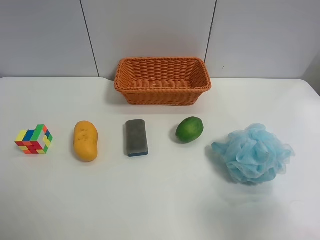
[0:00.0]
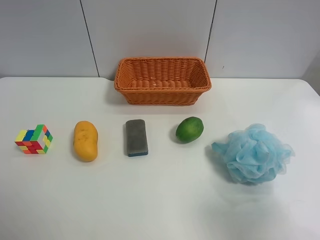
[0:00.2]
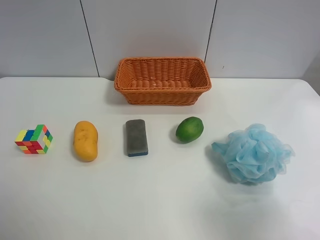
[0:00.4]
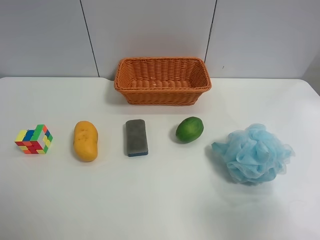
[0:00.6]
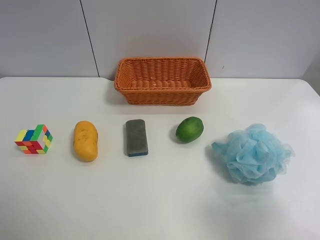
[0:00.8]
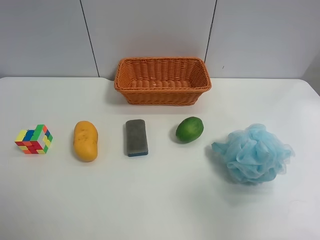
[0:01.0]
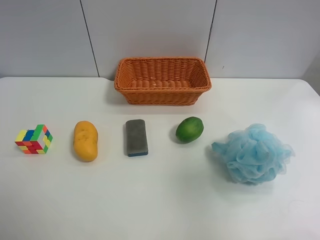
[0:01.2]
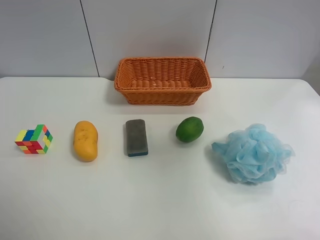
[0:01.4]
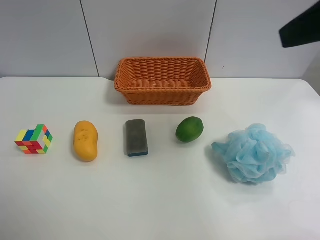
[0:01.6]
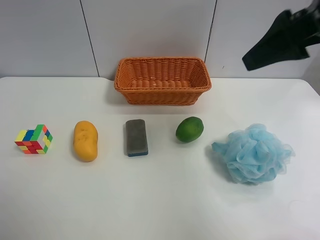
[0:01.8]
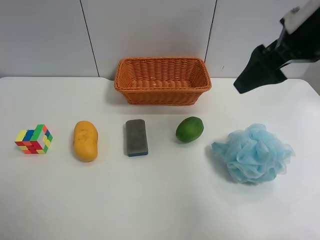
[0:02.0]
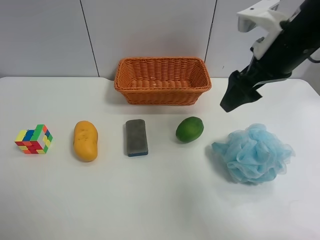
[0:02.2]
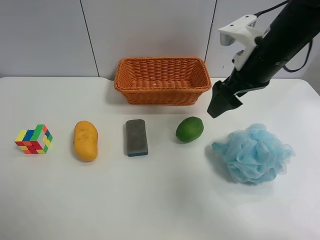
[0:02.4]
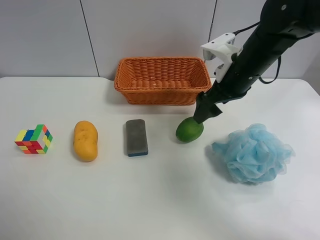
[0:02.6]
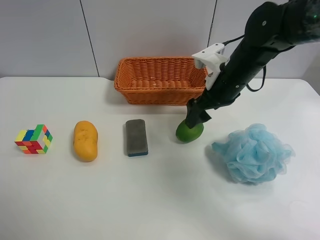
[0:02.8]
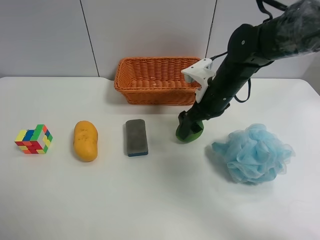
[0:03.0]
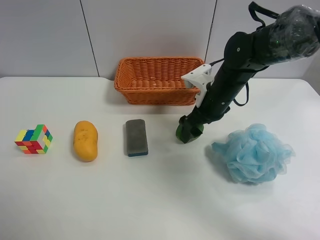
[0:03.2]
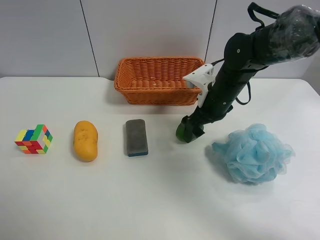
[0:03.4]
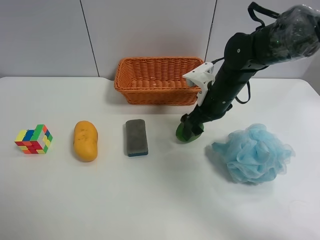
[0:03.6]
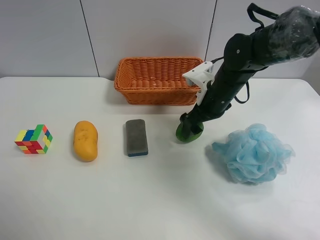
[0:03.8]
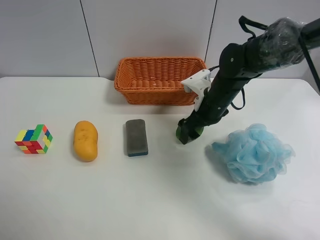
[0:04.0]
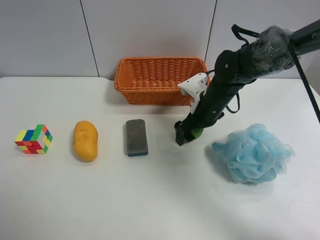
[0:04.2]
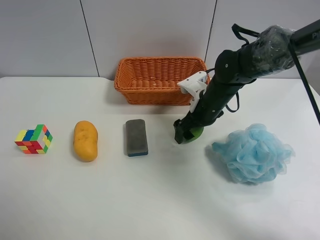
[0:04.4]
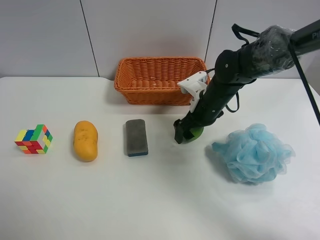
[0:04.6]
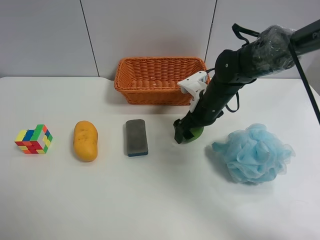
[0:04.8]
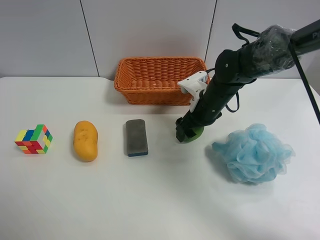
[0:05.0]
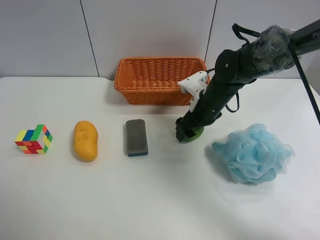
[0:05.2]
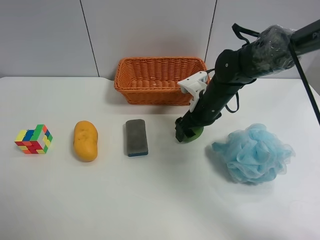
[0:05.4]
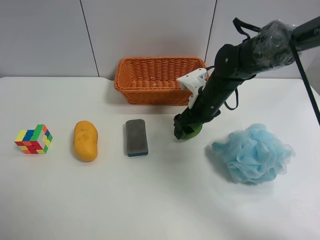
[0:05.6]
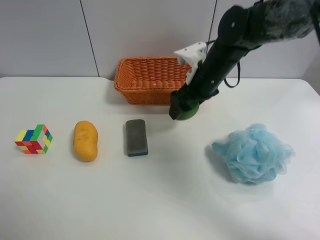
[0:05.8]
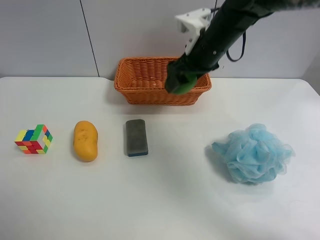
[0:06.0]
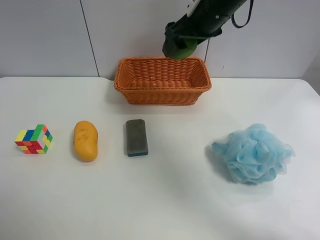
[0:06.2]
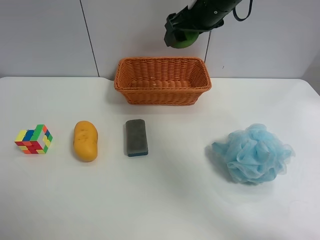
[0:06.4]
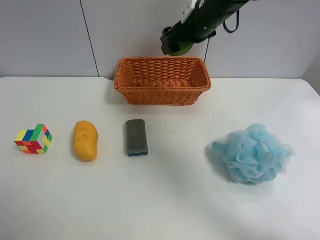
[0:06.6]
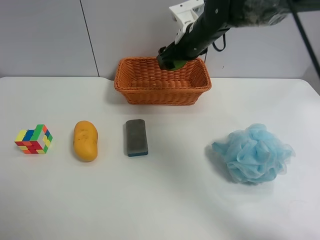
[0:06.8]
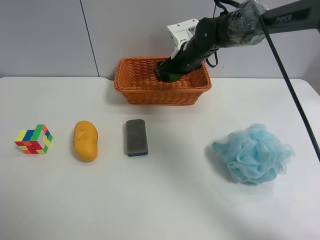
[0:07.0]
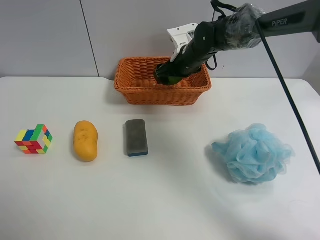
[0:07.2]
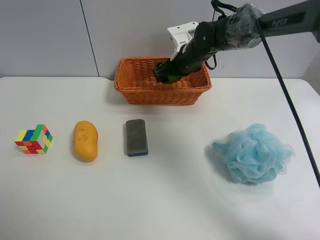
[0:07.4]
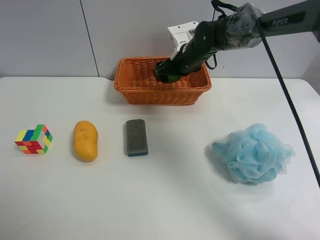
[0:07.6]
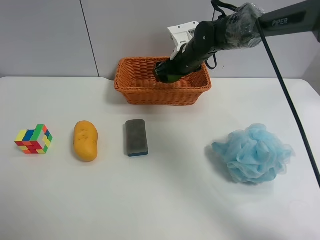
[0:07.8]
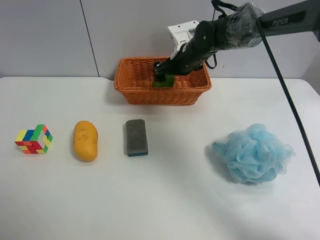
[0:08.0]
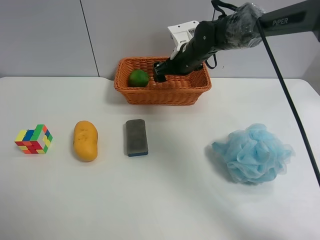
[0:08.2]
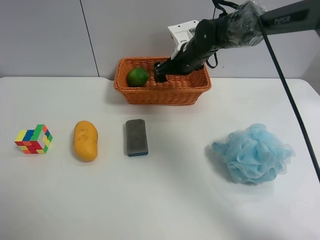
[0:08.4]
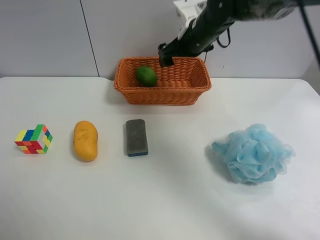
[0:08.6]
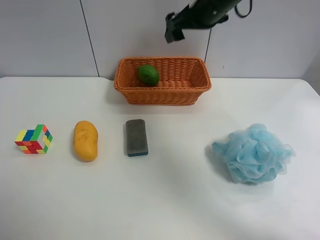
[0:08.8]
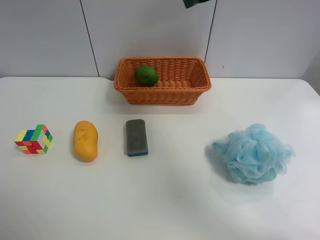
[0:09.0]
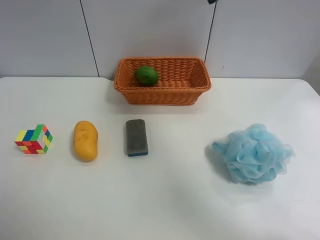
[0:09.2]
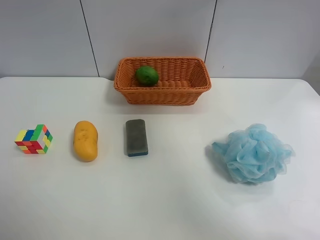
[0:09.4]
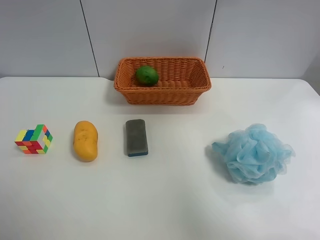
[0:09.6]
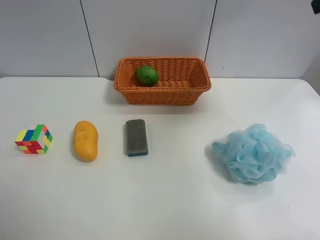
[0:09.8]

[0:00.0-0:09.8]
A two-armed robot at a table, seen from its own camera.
Task of the whole recording: Randomly grab green lemon or mangoes from the table and put them in a basket.
Step, 0:00.0 to 0:05.2: Grasp the Lemon with the right gripper.
Step, 0:05.4 to 0:08.6: Place the Lemon into the basket with the right gripper.
0:00.0 to 0:01.4: The right gripper goes roughly 20 cm forward and upward.
0:01.4 to 0:02.8: The right gripper goes about 30 cm downward, forward and to the left.
0:02.8 to 0:04.2: The right gripper shifts some 5 cm downward.
0:04.2 to 0:05.6: The right gripper closes.
0:05.6 to 0:07.0: The right gripper shifts approximately 10 cm forward, and reaches about 15 cm upward, then returns.
0:07.0 to 0:08.4: The right gripper opens.
0:08.4 to 0:09.8: The right gripper is displaced upward, backward and to the right by approximately 35 cm.

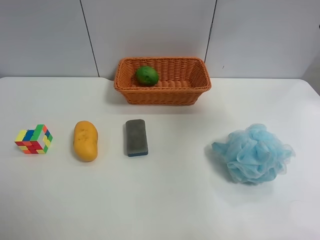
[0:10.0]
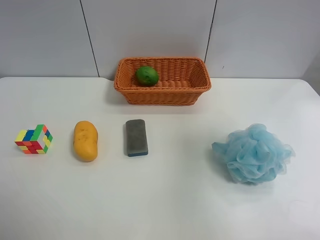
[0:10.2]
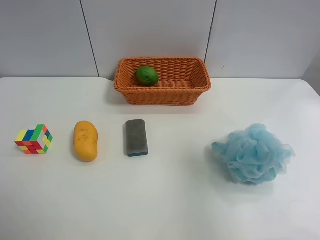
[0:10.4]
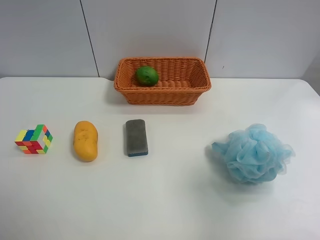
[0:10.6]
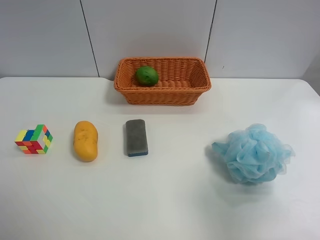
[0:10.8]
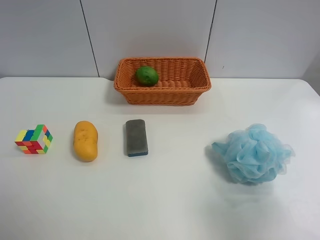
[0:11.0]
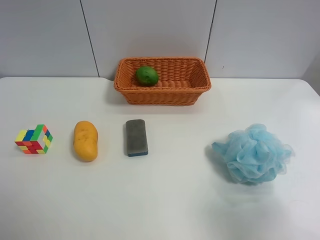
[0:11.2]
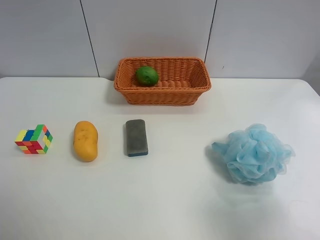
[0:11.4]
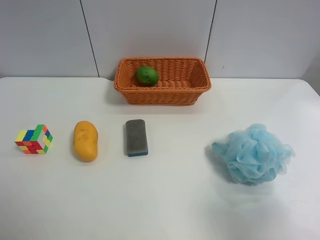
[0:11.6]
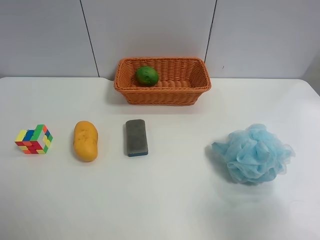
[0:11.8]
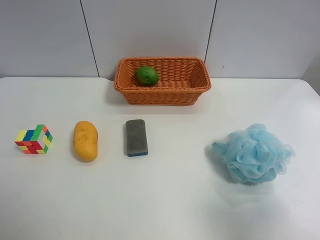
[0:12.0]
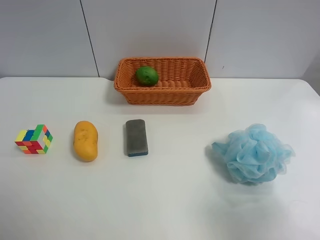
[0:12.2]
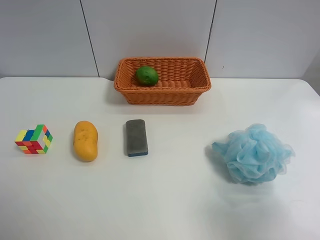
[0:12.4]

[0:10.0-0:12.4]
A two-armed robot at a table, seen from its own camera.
Task of the whole recording: Randomly grab green lemon or mangoes from the table and put them in a basket.
0:10.0 to 0:11.2: The right gripper moves backward and downward, some 20 cm.
0:11.2 to 0:12.4: The two grippers keep their place.
